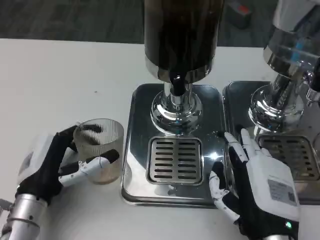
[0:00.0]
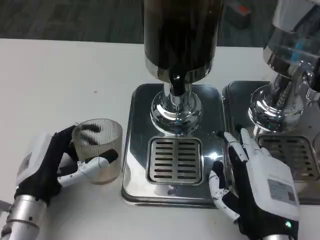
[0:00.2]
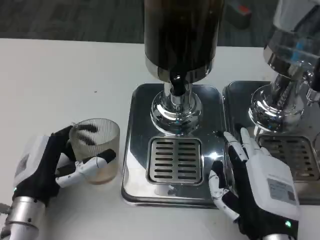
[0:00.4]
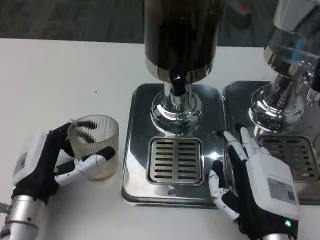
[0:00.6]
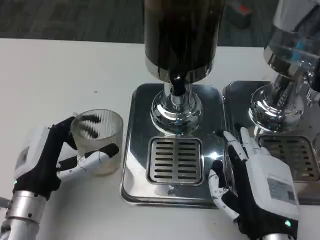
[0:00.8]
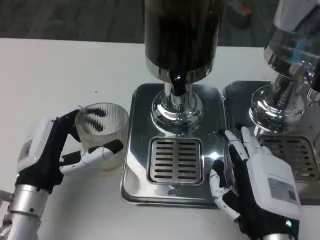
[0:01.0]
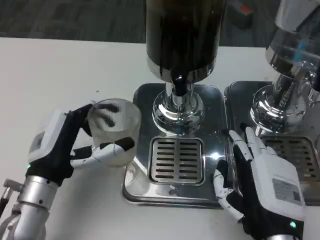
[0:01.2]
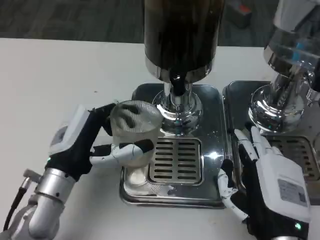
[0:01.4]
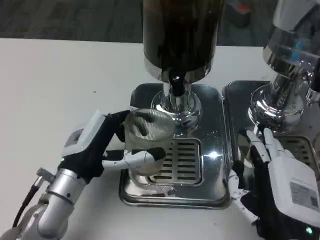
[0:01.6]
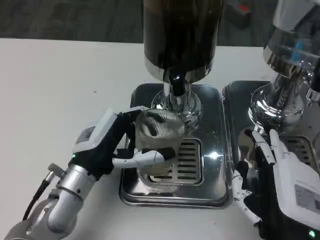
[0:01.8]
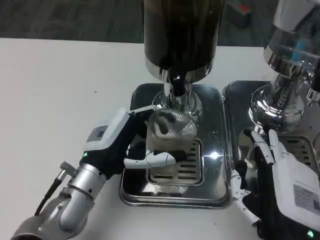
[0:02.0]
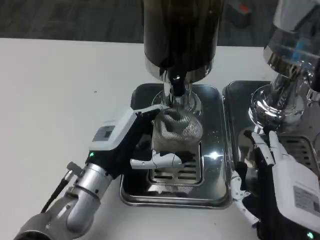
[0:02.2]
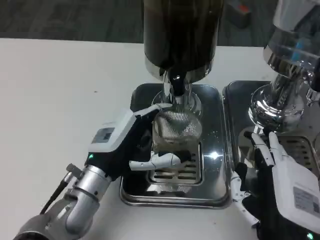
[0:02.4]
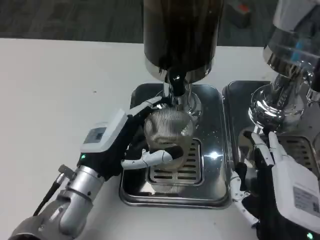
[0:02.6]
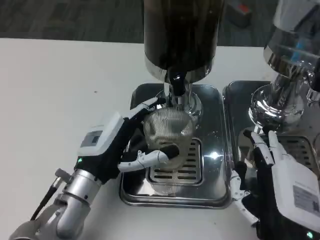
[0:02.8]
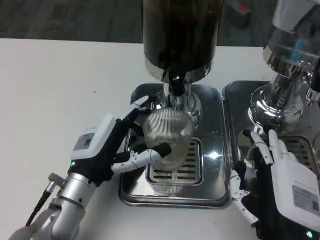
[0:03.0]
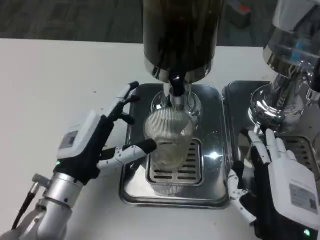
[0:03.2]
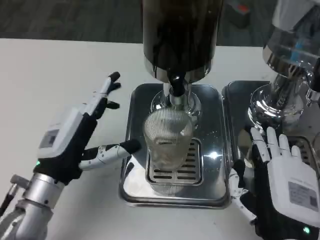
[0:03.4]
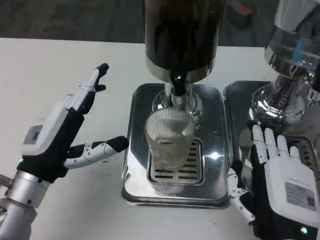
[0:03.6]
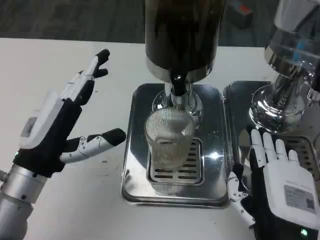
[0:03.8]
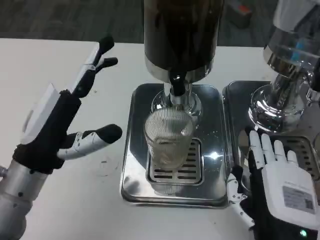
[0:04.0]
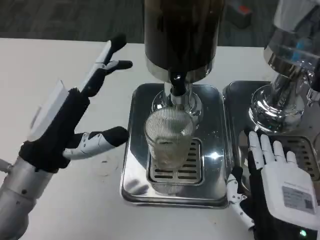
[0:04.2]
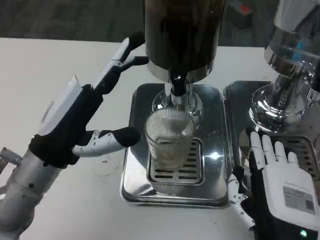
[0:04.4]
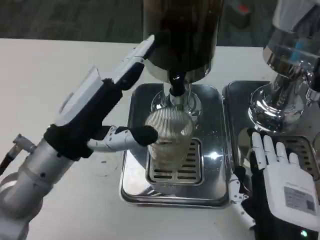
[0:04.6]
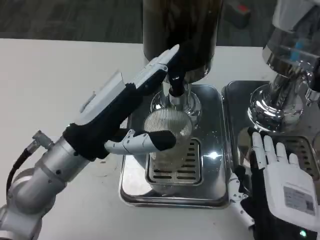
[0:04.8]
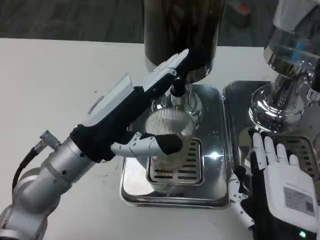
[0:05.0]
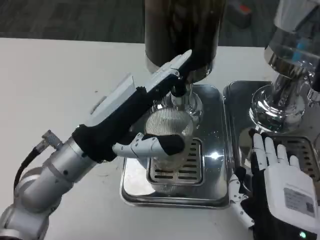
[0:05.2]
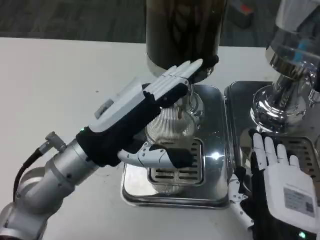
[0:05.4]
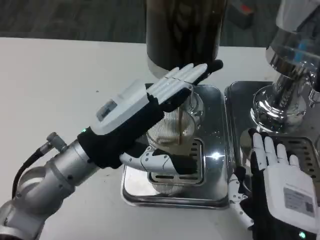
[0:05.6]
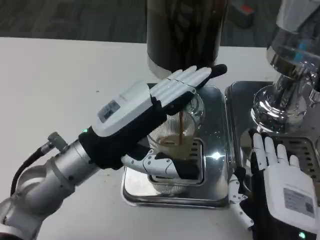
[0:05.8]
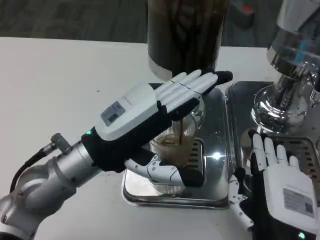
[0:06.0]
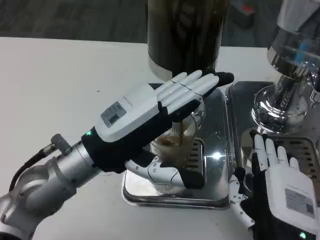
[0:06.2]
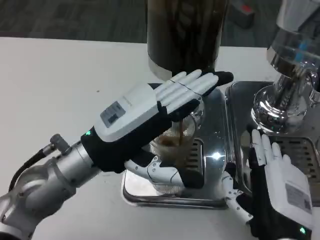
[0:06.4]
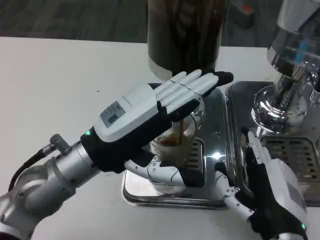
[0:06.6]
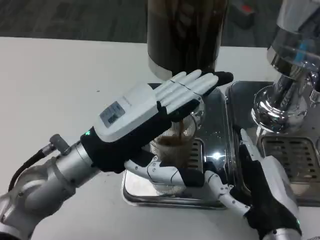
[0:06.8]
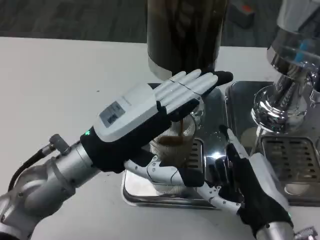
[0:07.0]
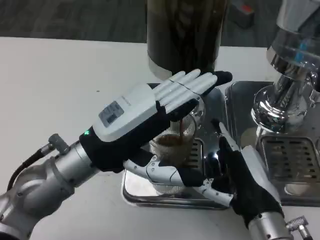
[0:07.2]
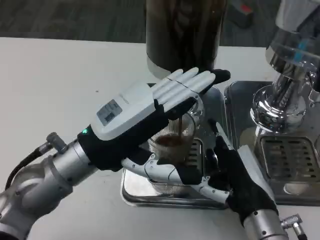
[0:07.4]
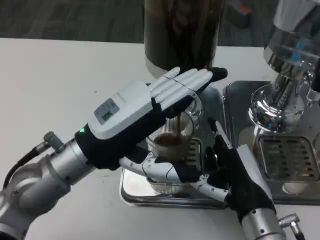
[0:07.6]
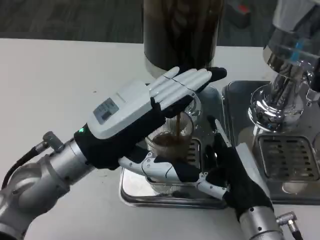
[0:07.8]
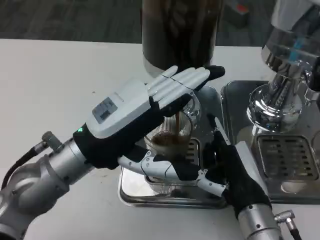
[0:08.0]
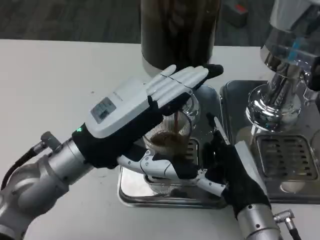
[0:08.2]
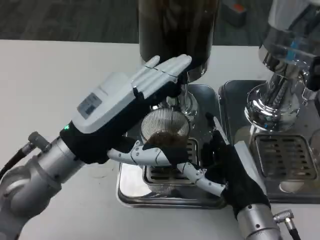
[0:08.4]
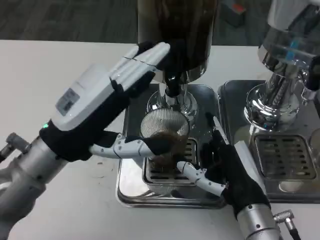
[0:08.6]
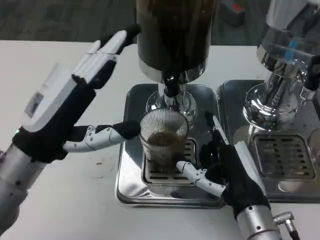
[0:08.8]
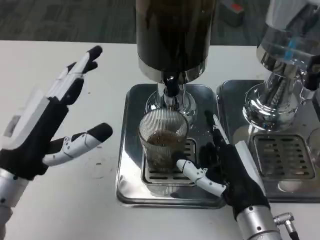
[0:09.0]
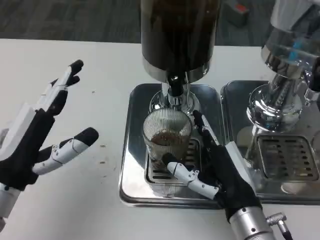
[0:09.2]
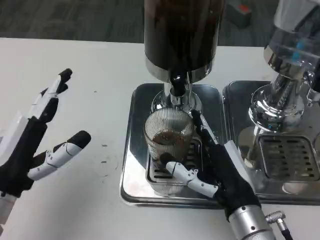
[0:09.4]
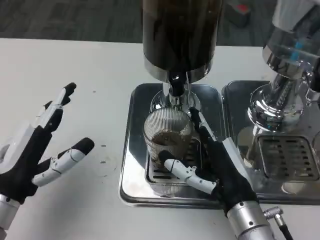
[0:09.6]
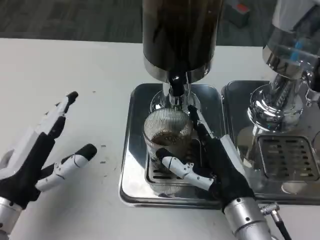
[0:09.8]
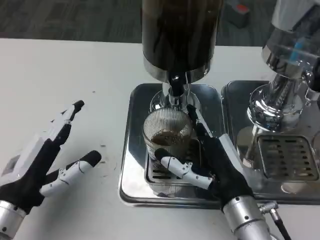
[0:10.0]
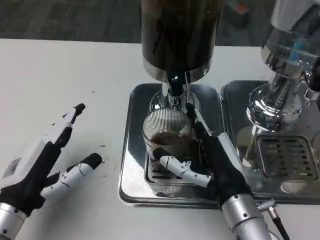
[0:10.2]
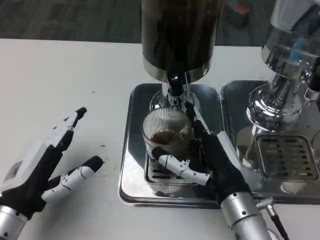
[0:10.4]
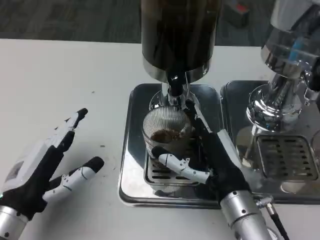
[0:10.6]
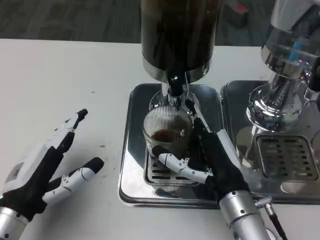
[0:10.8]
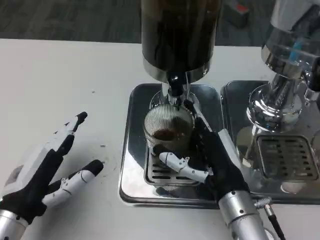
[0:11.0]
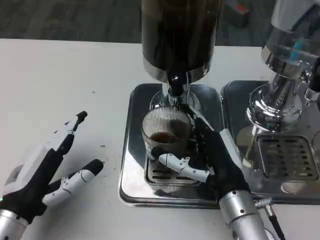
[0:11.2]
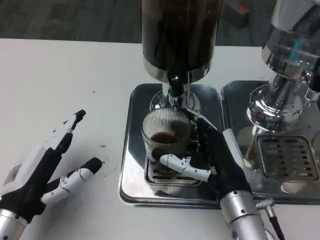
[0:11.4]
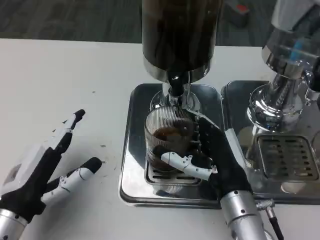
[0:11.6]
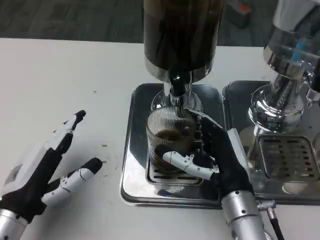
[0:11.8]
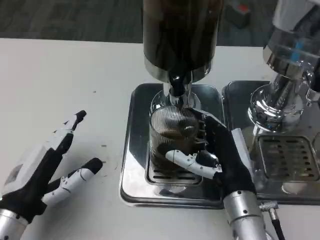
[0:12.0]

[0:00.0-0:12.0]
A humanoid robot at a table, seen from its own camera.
Task of the whole recording: Grasp the cup under the faucet to collect the drink, then remove the cup.
0.0 to 1.6 s: The left hand moves roughly 5 cm.
1.6 to 3.0 s: The hands make only small movements.
3.0 to 4.4 s: The left hand travels upward by approximately 10 cm.
6.0 to 7.6 s: The right hand goes roughly 5 cm forward.
7.6 to 9.0 s: The left hand goes some 5 cm to the left.
9.0 to 10.4 s: The left hand goes some 5 cm downward.
10.4 to 12.0 s: There are only small adjustments of the hands.

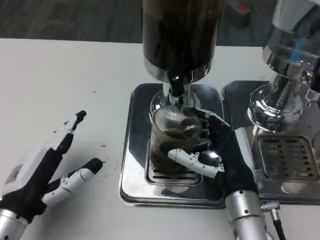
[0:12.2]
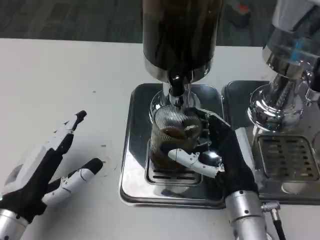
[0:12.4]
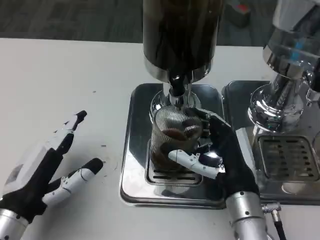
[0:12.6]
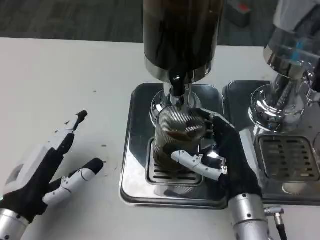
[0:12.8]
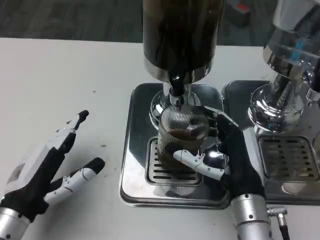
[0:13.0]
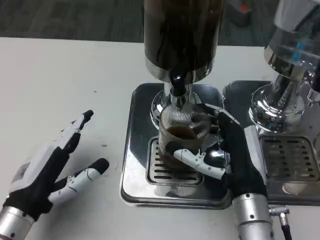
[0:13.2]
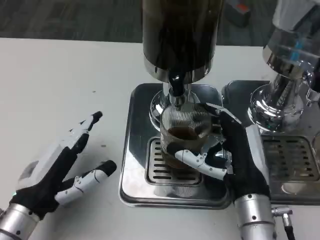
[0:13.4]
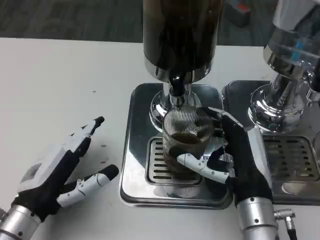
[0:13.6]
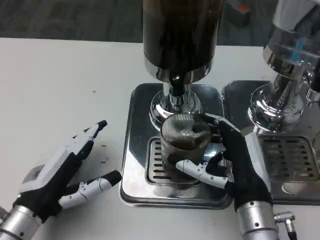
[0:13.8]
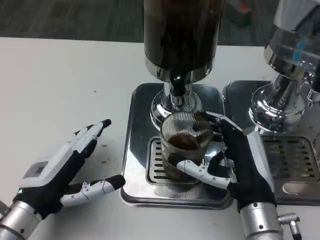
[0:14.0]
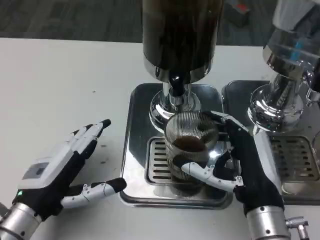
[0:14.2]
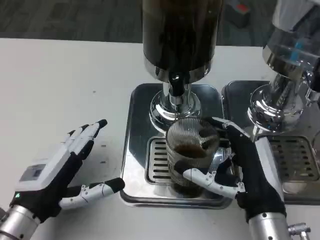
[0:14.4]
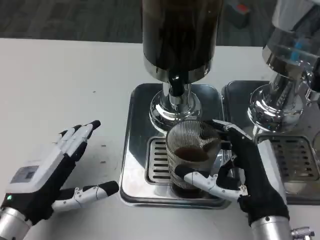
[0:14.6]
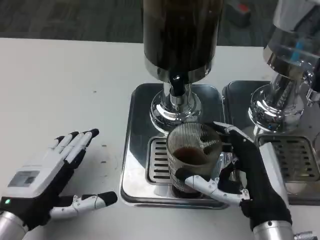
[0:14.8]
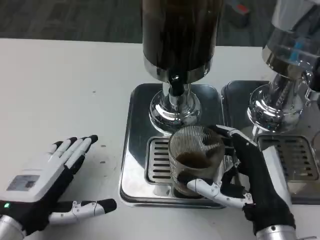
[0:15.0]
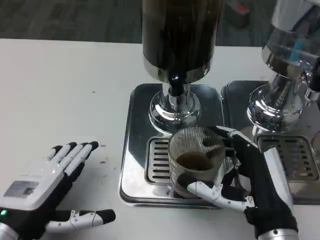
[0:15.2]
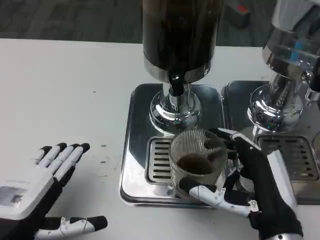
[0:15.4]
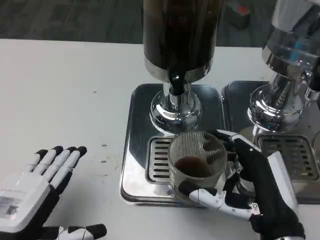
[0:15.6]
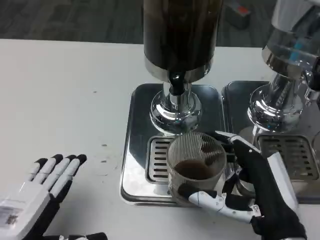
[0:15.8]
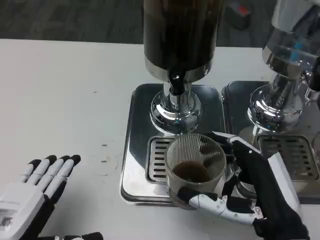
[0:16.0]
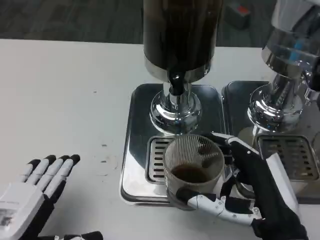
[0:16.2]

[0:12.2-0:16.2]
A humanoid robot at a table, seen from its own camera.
Task of the whole recording: Grasp the cup under the faucet to collect the drink, then remove the cup.
14.8 to 16.2 s: The left hand travels backward by about 5 cm.

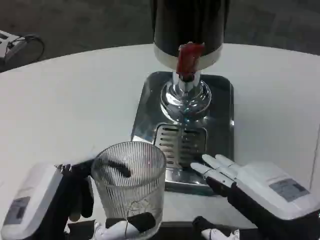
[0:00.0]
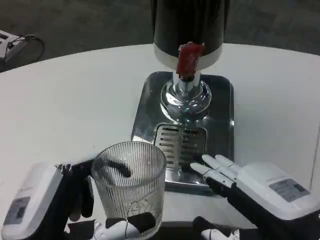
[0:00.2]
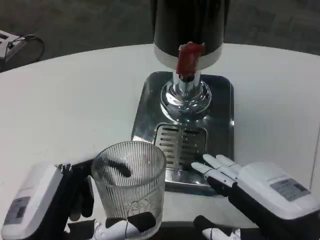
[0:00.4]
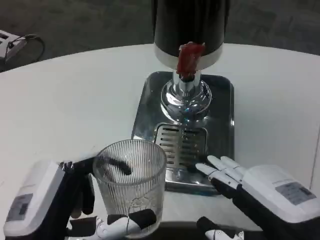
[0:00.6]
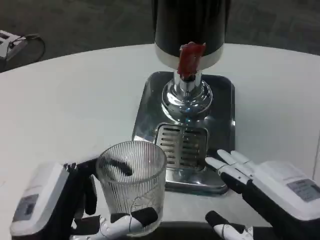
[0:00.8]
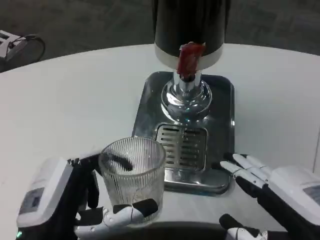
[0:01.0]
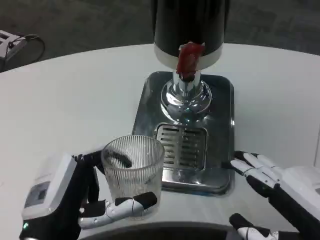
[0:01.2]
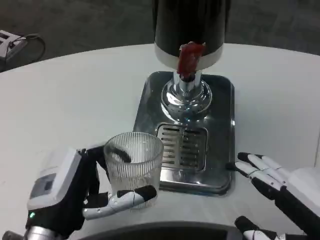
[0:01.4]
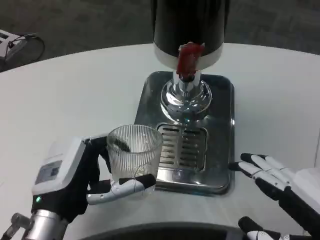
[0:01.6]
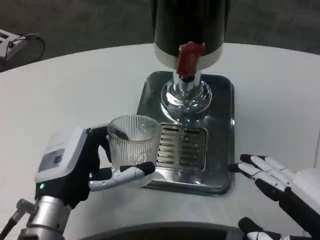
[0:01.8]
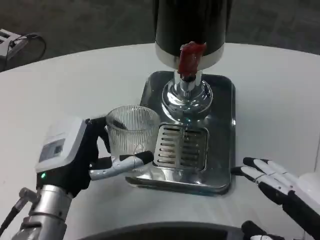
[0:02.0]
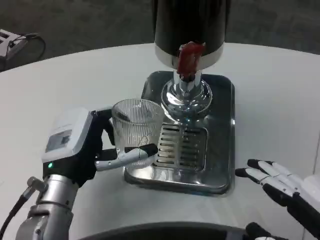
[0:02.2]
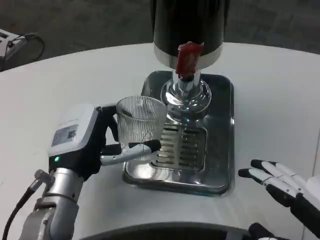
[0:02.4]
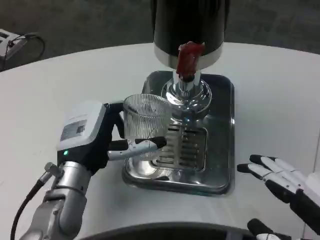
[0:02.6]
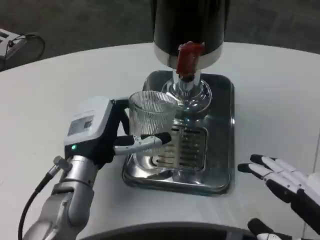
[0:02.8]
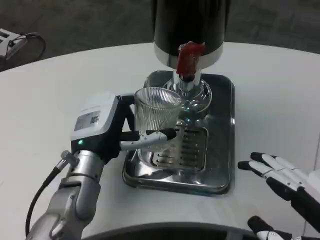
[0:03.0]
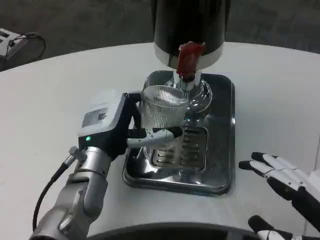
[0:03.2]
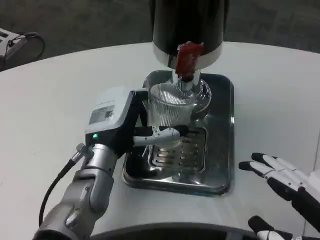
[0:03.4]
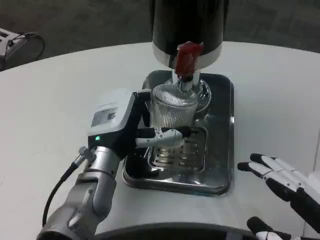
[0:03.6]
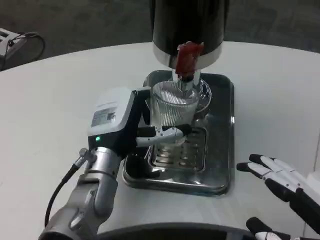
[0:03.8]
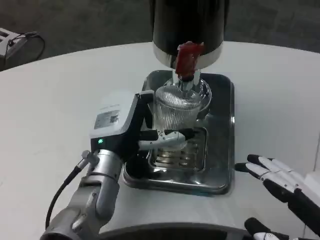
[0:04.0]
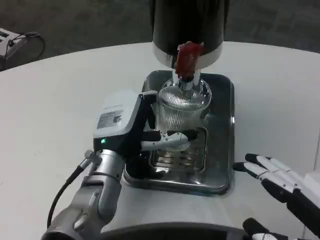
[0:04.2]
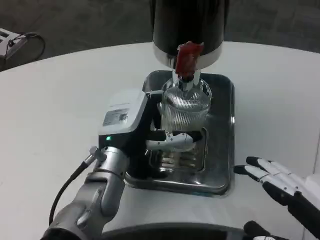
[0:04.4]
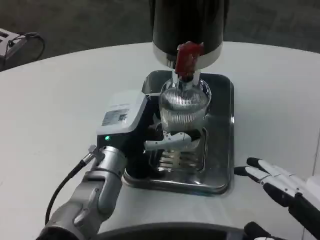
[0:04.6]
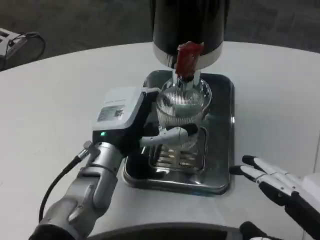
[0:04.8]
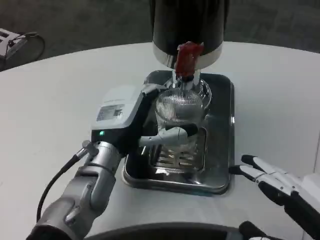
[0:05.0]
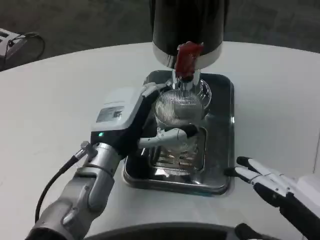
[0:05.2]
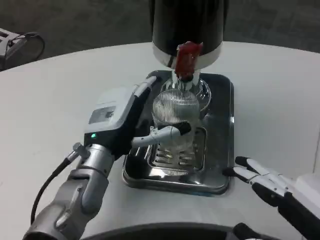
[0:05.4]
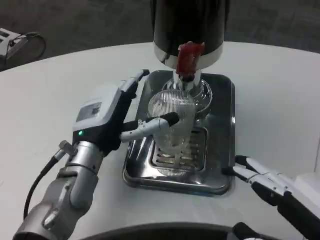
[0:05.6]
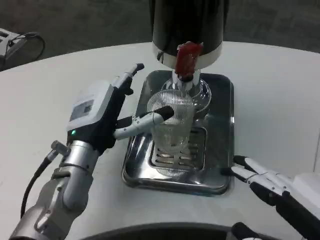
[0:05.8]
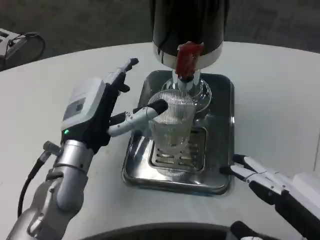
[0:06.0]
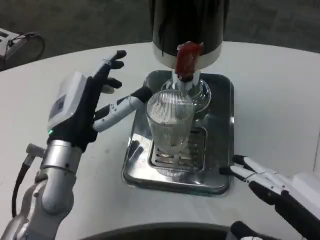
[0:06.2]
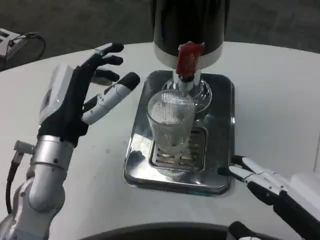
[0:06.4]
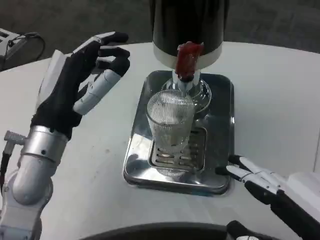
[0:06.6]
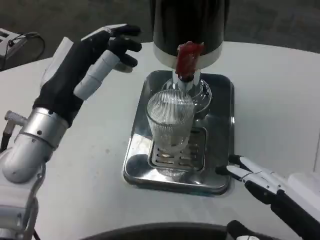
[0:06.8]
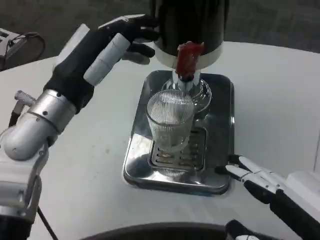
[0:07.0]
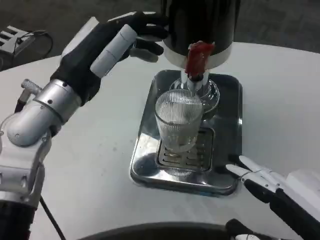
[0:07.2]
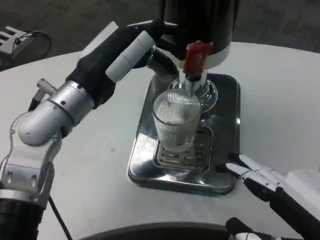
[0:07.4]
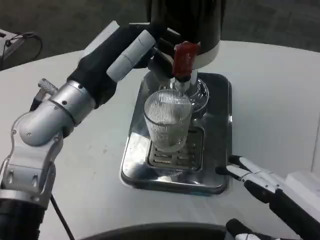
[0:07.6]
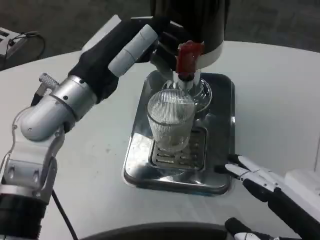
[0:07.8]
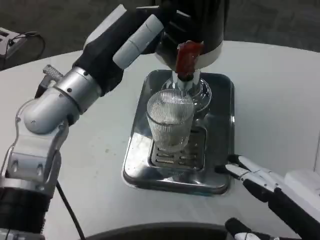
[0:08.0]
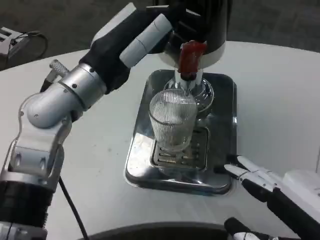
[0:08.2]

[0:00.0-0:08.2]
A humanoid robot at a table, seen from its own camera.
Task of the whole recording: Grasp the cup under the faucet to collect the drink, then remove the cup.
0.0 to 1.6 s: The left hand shifts about 10 cm forward. Meanwhile the right hand shifts by approximately 5 cm.
1.6 to 3.2 s: The left hand travels forward by about 10 cm.
3.2 to 5.0 s: The hands make only small movements.
5.0 to 6.6 s: The left hand travels to the left and upward by about 10 cm.
6.6 to 8.2 s: The left hand shifts roughly 10 cm upward.
